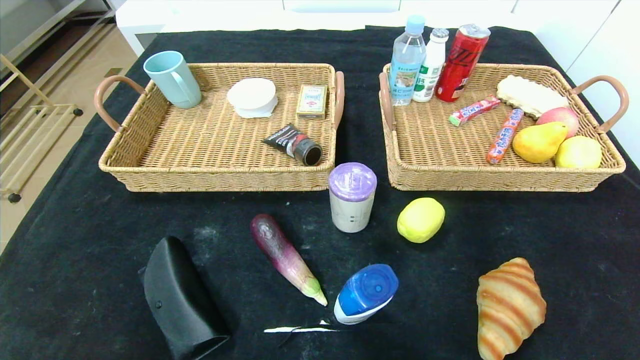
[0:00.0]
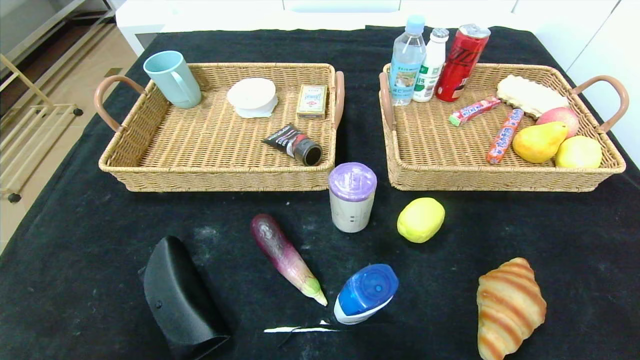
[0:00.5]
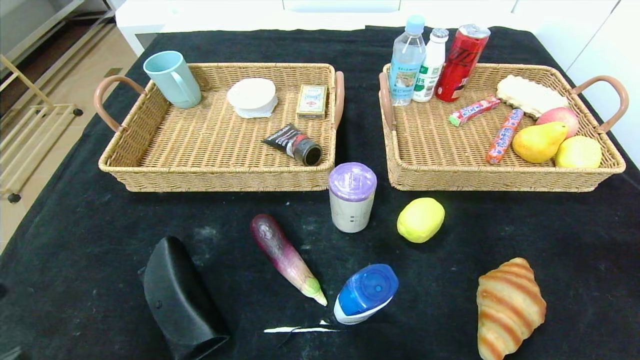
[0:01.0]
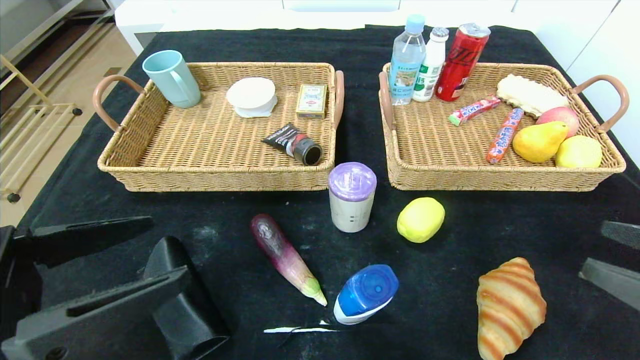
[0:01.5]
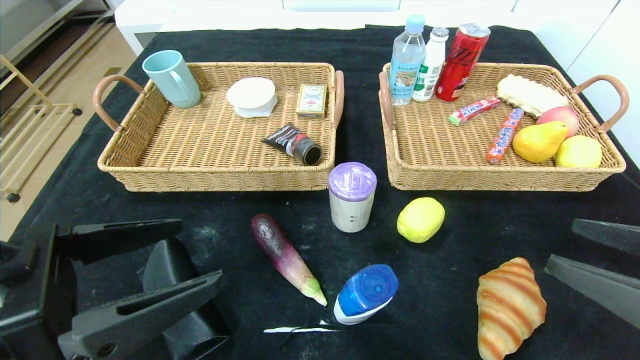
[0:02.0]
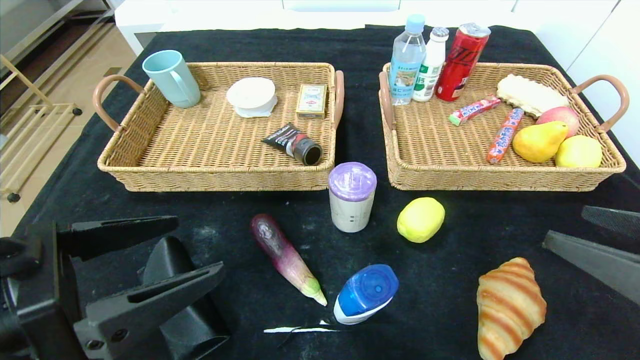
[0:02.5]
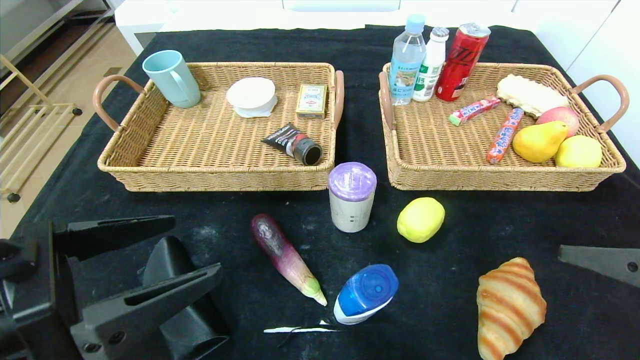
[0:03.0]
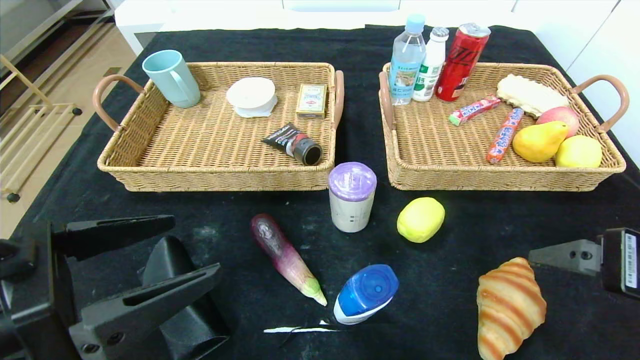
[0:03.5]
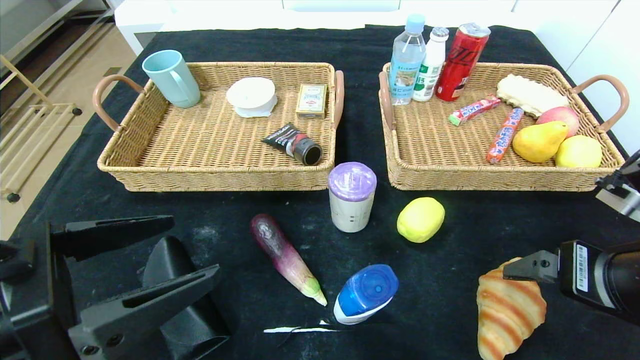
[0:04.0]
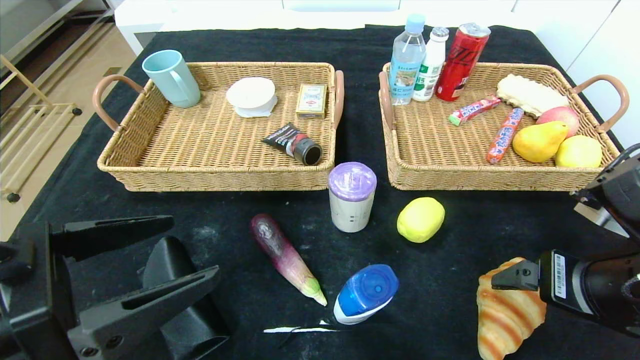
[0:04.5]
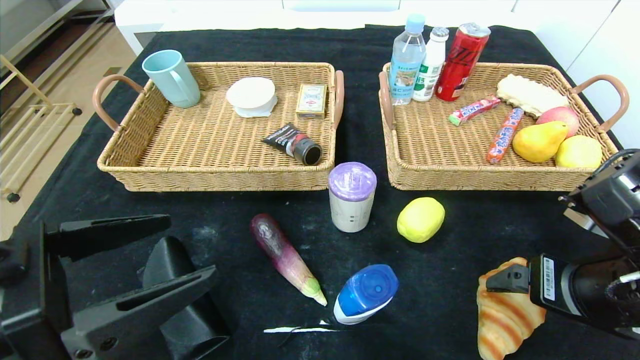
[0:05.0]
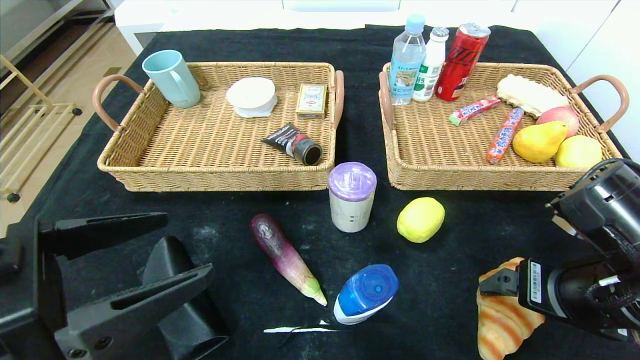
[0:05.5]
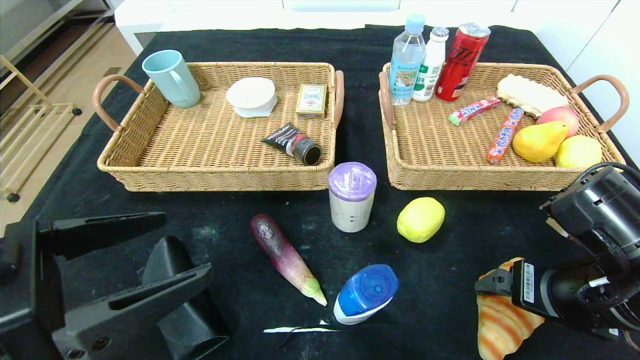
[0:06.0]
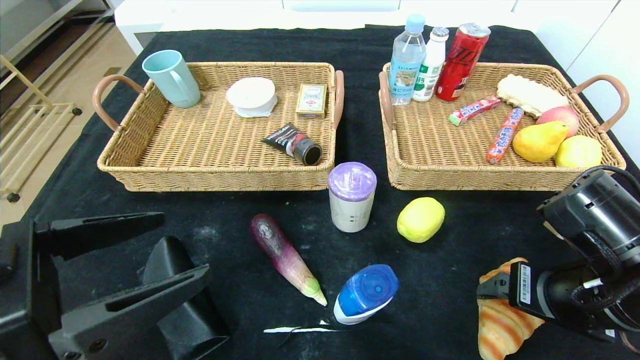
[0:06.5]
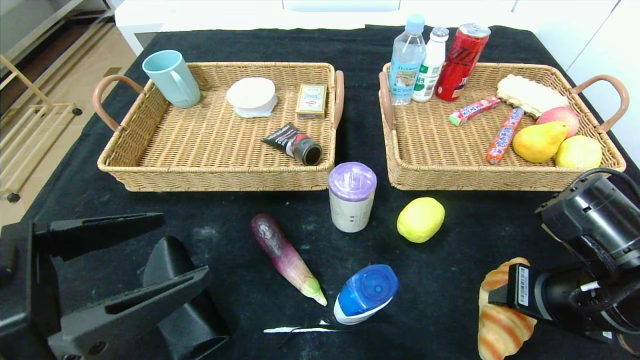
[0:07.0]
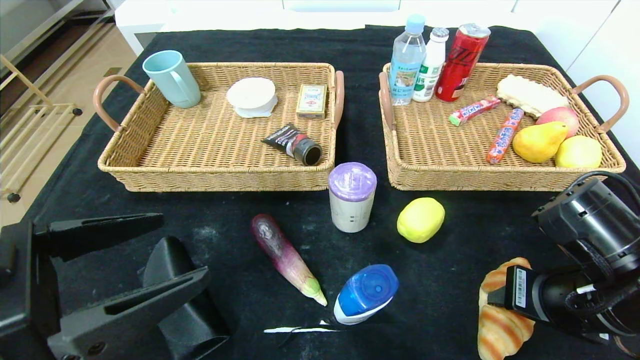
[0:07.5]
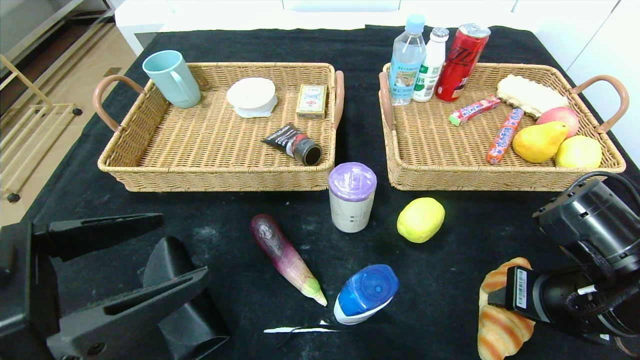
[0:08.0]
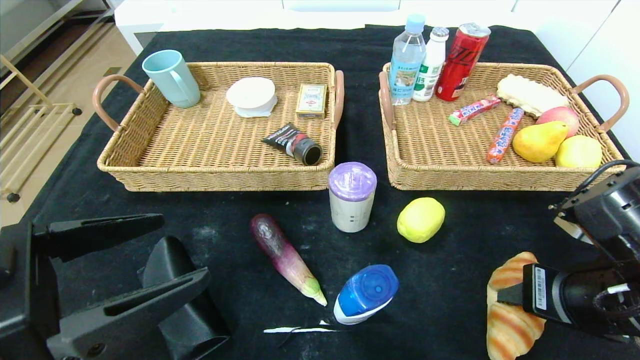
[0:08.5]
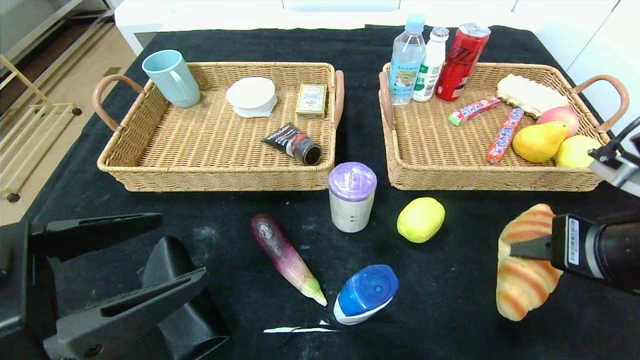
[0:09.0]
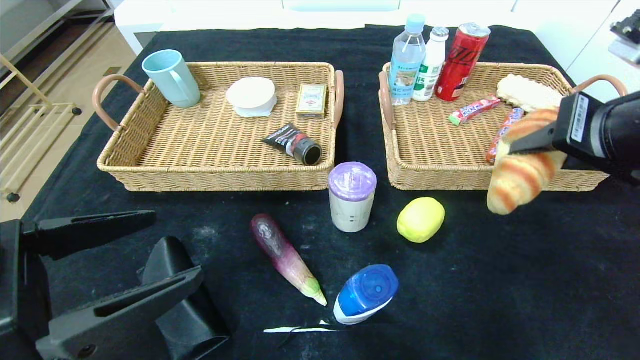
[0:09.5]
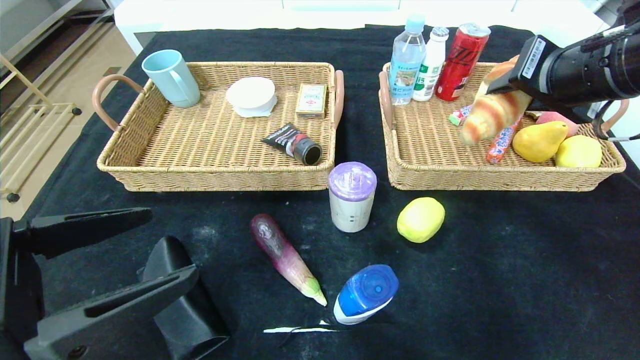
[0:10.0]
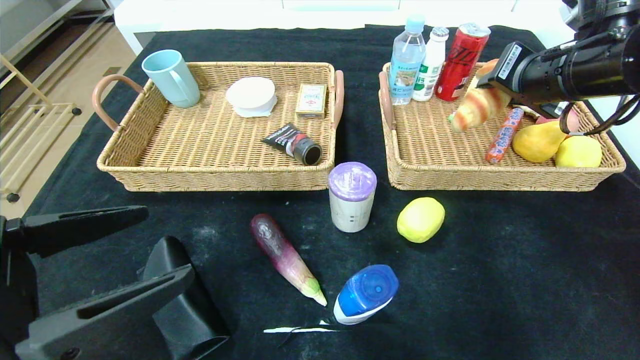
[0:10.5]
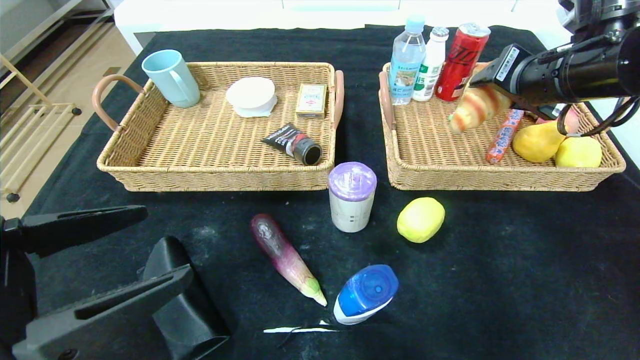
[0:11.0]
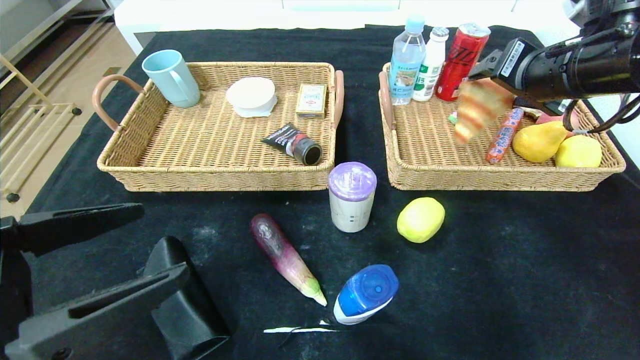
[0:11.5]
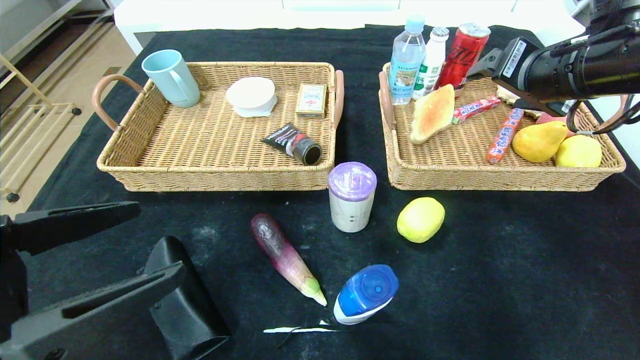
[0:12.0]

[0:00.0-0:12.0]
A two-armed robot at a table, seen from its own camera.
0.0 to 2.0 s: The right gripper goes roughly 25 cm upward, forward and to the left. The left gripper moves upward and forward, approximately 20 cm.
2.0 to 4.0 s: The right gripper moves forward, roughly 5 cm.
4.0 to 6.0 s: The right gripper changes place by approximately 5 cm.
6.0 to 8.0 s: The right gripper closes its fingers.
8.0 to 10.0 s: The right gripper heads upward and forward, covering approximately 20 cm.
10.0 to 12.0 s: The right gripper opens up.

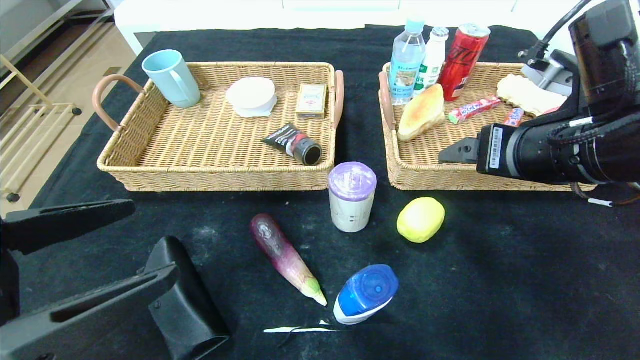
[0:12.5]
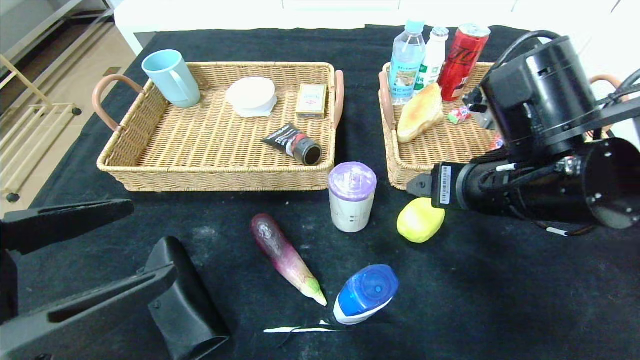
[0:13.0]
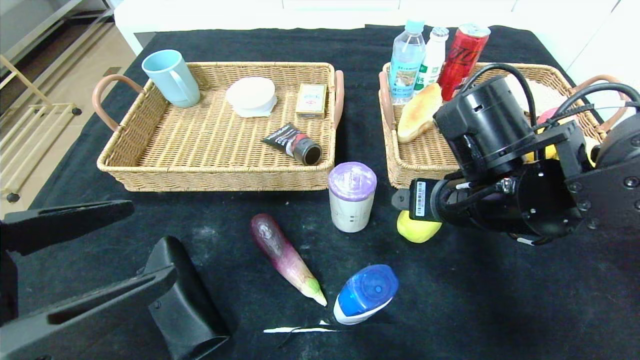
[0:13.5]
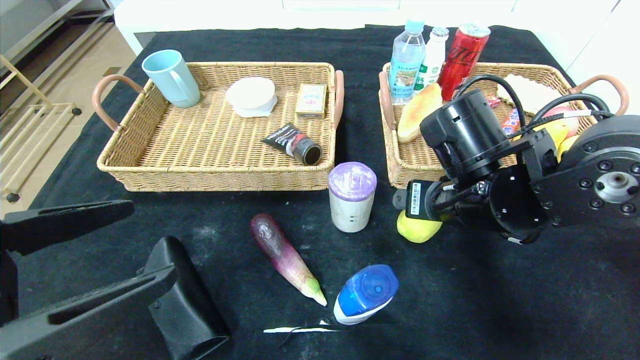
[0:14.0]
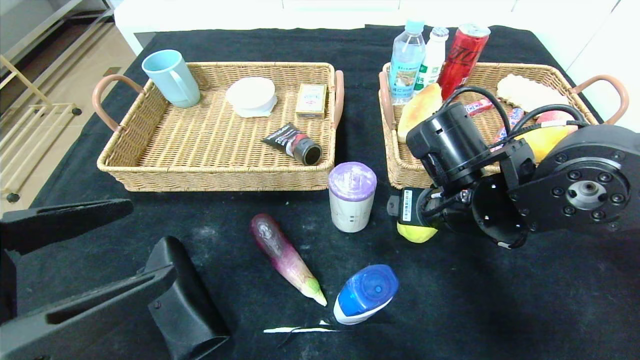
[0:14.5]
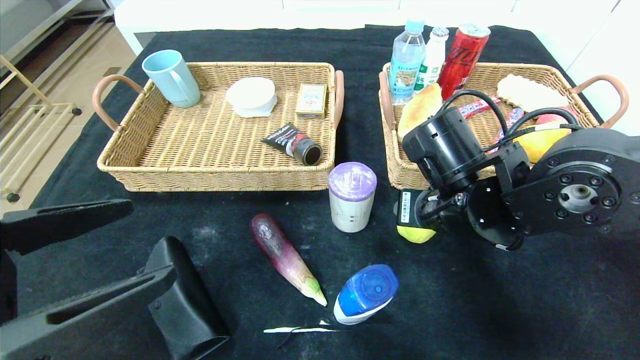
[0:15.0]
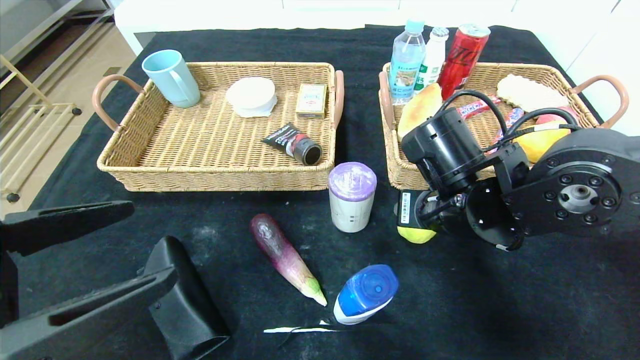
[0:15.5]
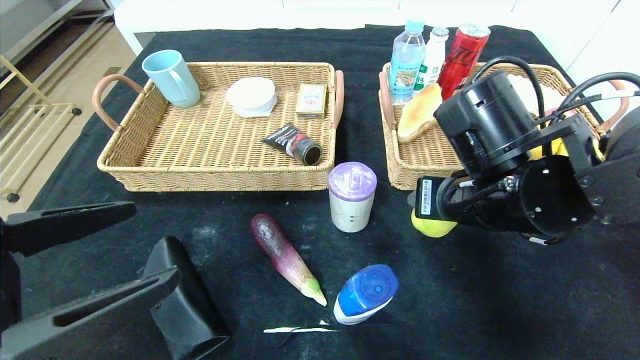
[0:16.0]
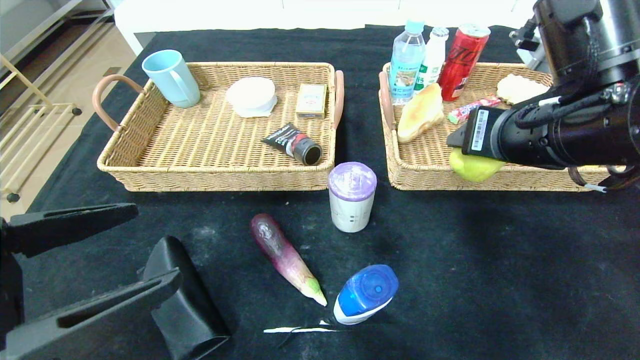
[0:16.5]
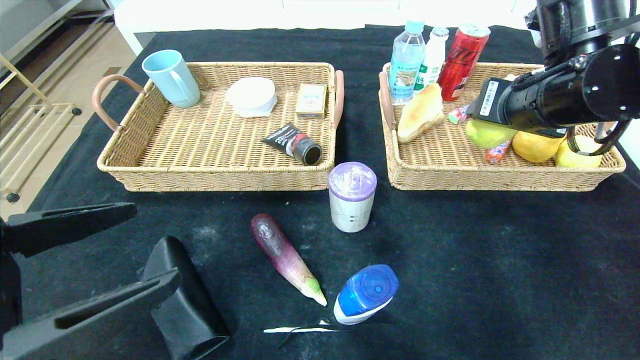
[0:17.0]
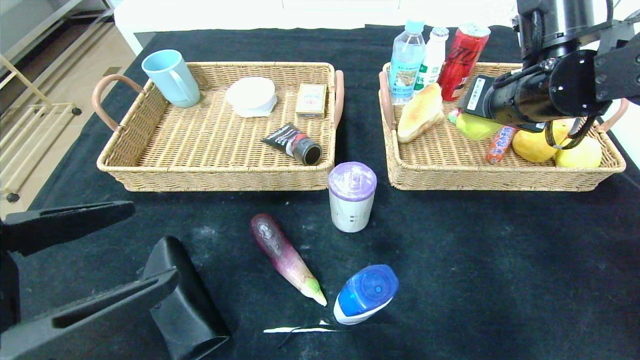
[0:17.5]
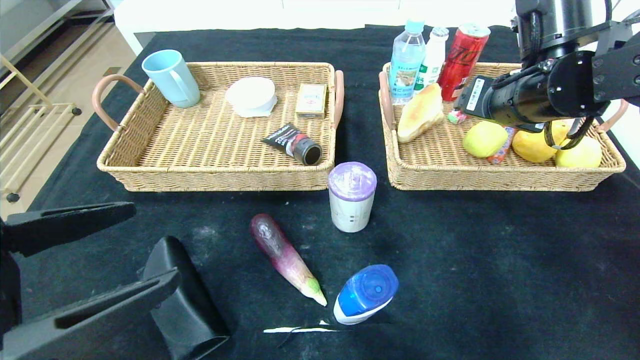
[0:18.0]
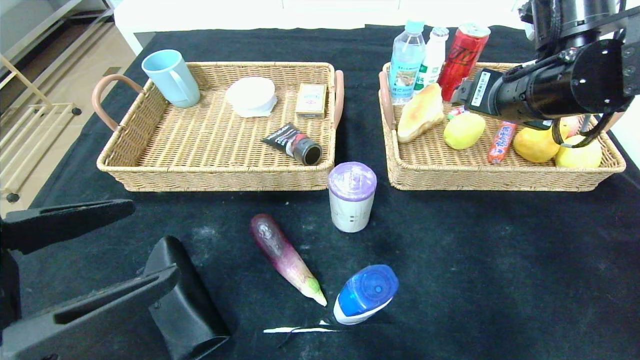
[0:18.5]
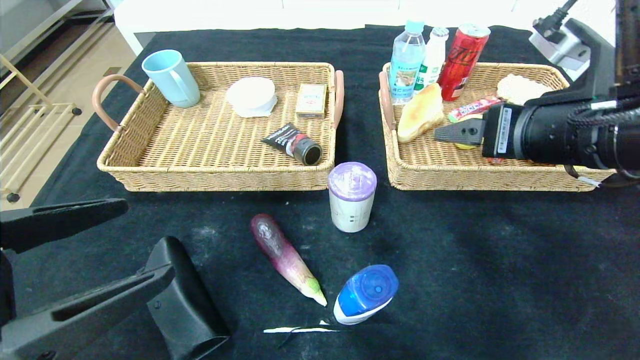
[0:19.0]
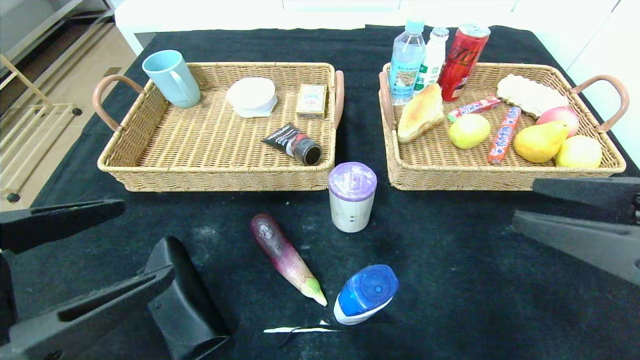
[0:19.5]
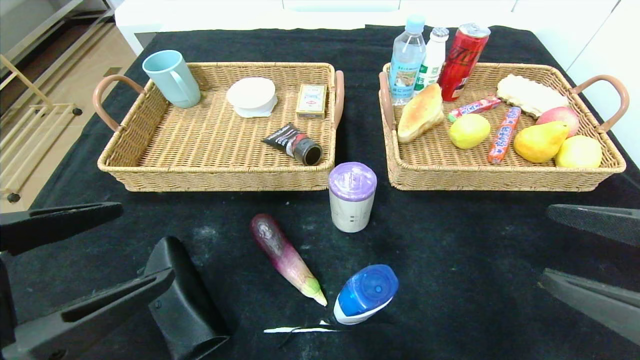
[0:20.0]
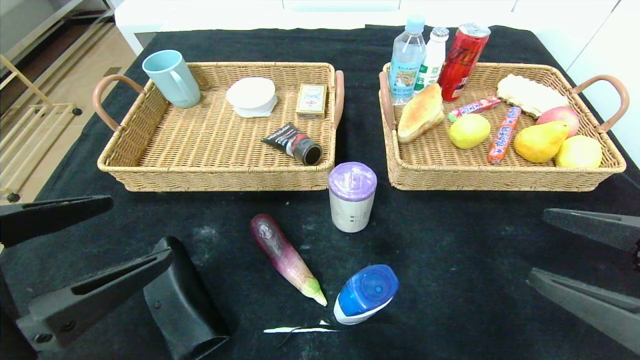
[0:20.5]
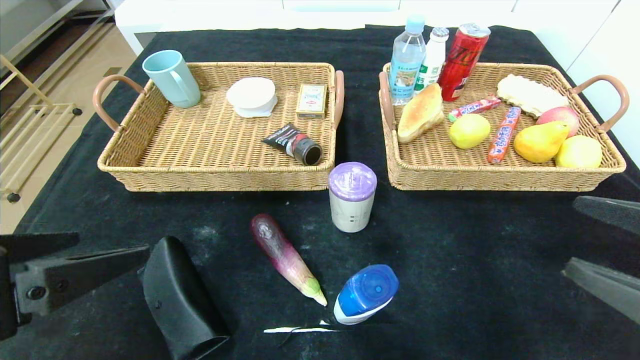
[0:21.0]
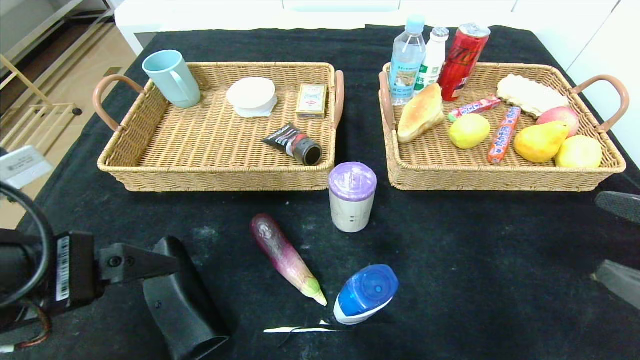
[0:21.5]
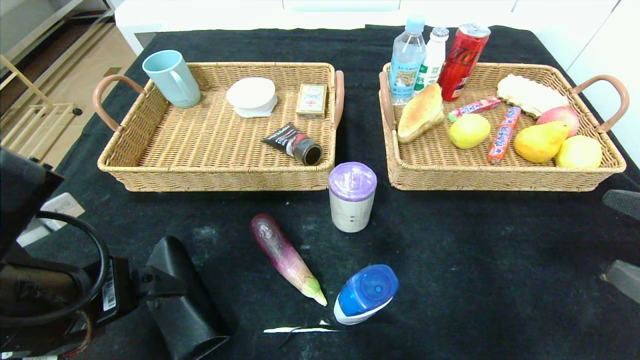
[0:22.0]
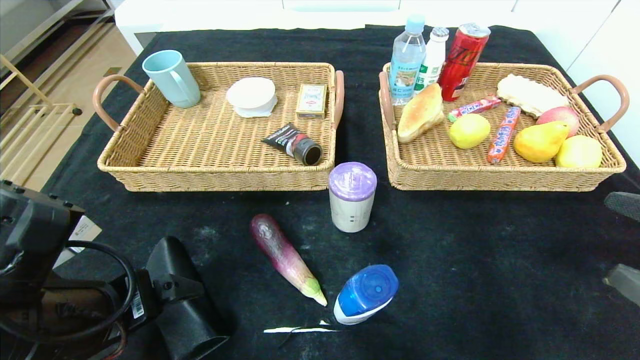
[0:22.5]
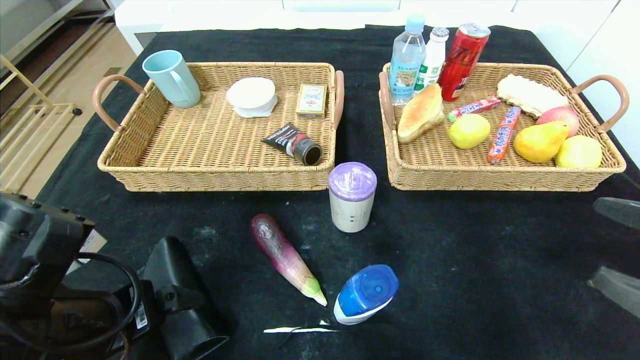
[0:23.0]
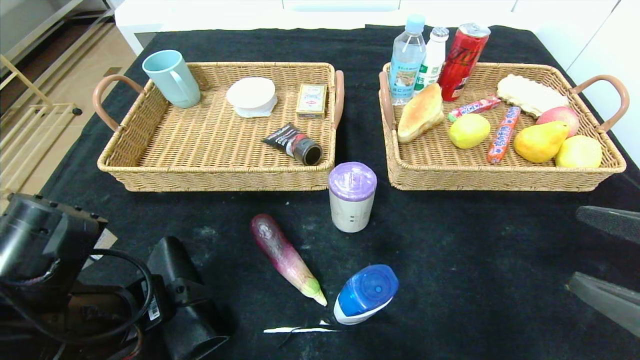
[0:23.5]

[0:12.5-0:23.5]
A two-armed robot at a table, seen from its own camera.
Step, 13.5 to 19.5 s: Pick up the lemon and put it in the right basket.
12.5 to 14.5 s: The right gripper goes approximately 10 cm downward and to the left.
14.5 to 16.0 s: The right gripper closes.
16.0 to 18.0 s: The right gripper goes about 15 cm forward, upward and to the right.
18.0 to 20.0 s: The right gripper is displaced backward by some 25 cm.
21.5 to 23.5 s: The left gripper shifts some 10 cm downward.
